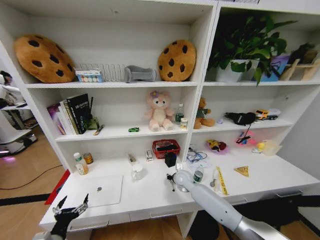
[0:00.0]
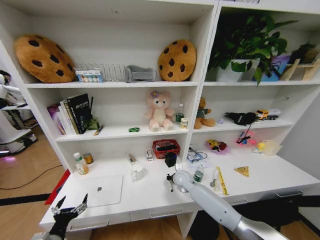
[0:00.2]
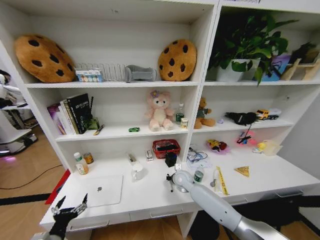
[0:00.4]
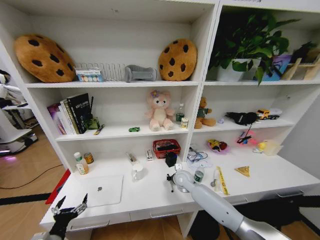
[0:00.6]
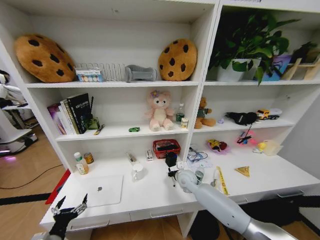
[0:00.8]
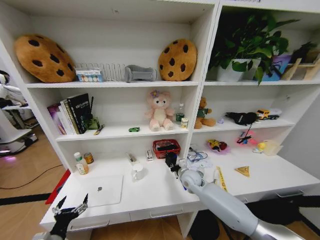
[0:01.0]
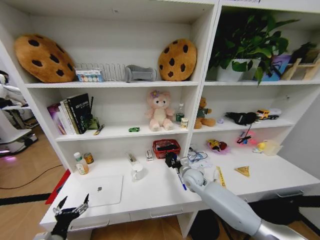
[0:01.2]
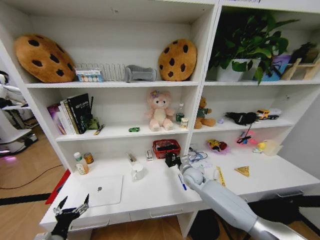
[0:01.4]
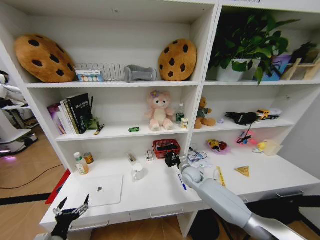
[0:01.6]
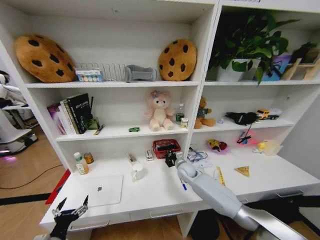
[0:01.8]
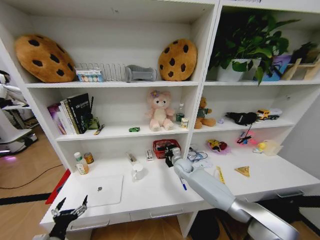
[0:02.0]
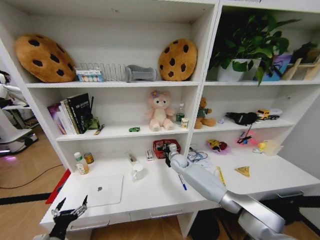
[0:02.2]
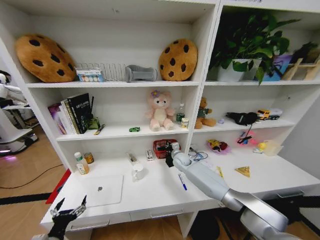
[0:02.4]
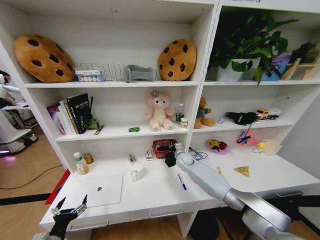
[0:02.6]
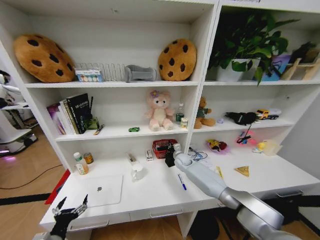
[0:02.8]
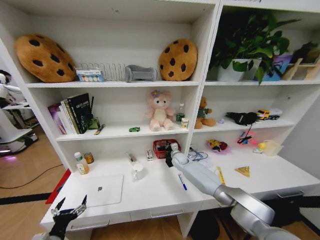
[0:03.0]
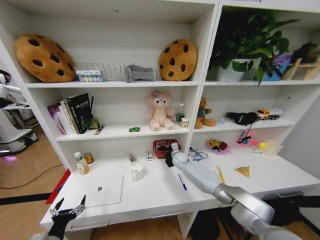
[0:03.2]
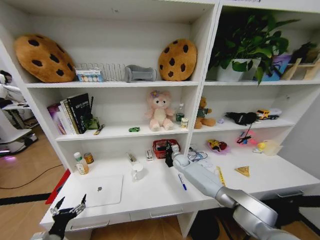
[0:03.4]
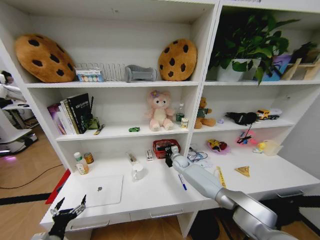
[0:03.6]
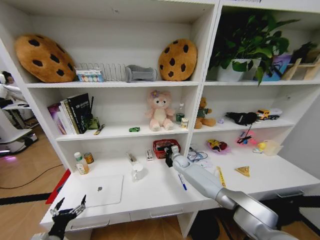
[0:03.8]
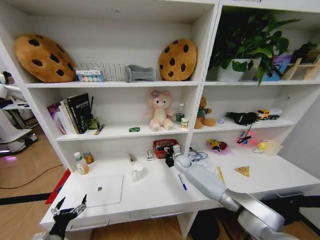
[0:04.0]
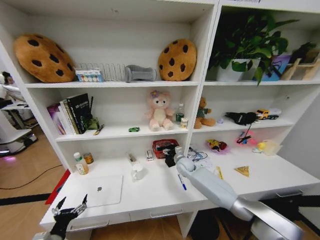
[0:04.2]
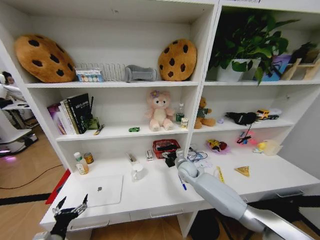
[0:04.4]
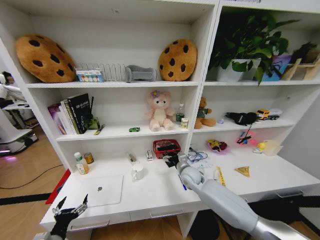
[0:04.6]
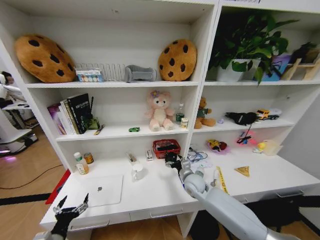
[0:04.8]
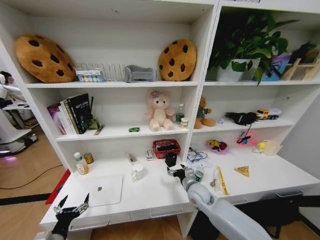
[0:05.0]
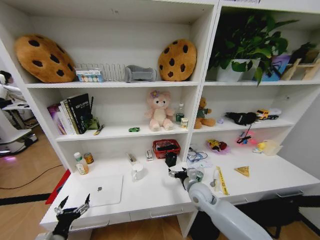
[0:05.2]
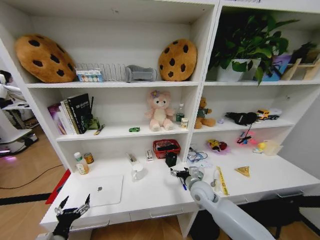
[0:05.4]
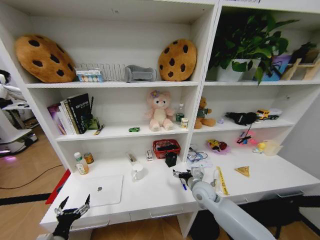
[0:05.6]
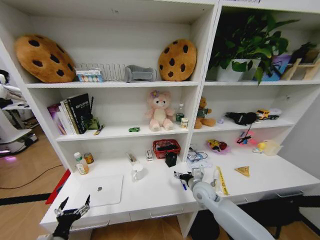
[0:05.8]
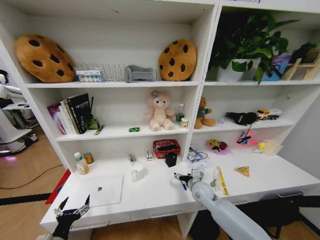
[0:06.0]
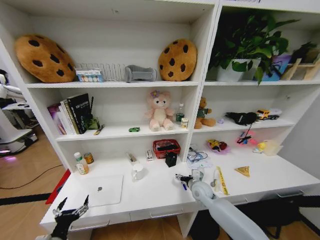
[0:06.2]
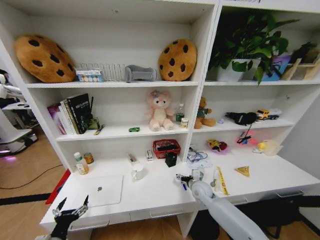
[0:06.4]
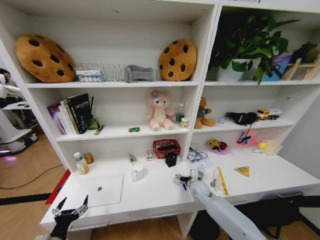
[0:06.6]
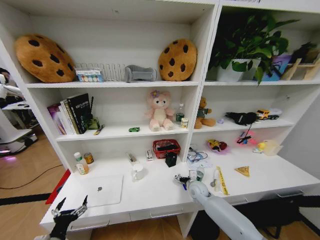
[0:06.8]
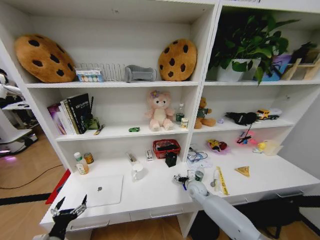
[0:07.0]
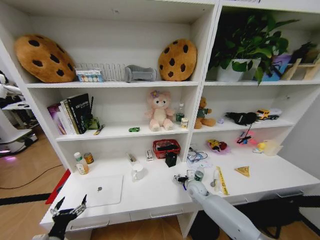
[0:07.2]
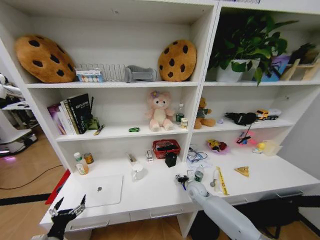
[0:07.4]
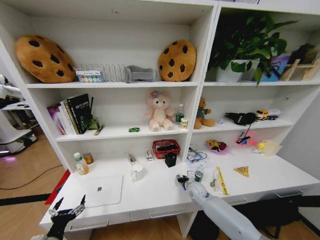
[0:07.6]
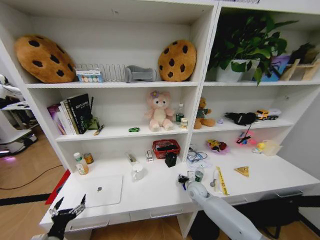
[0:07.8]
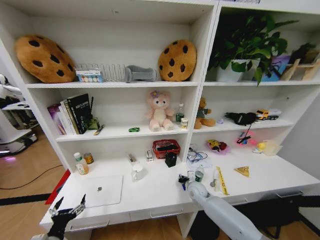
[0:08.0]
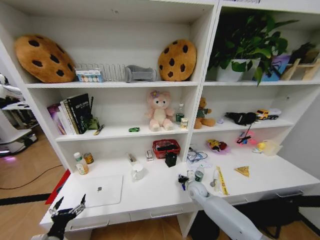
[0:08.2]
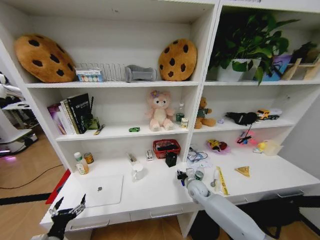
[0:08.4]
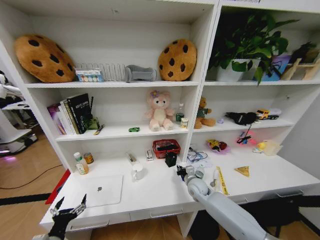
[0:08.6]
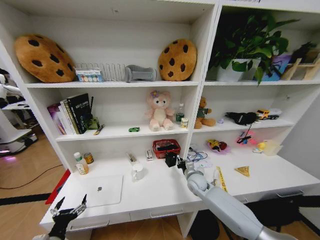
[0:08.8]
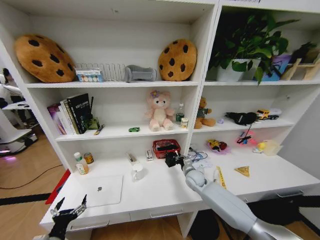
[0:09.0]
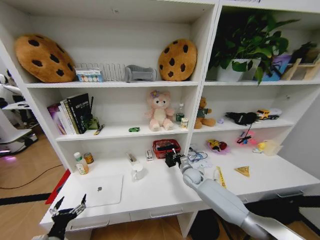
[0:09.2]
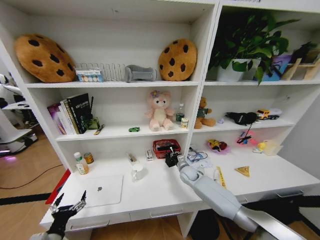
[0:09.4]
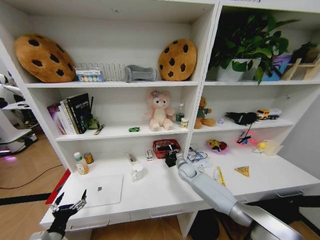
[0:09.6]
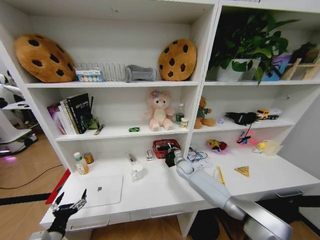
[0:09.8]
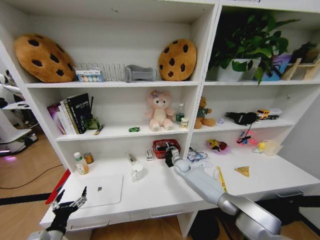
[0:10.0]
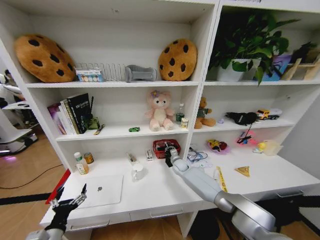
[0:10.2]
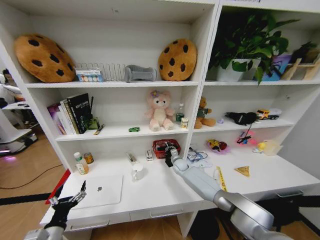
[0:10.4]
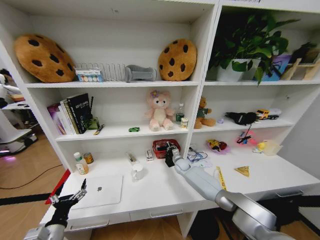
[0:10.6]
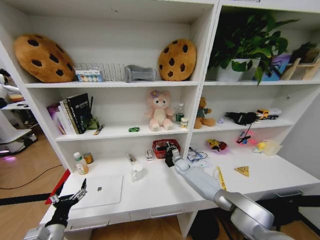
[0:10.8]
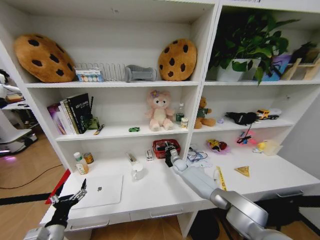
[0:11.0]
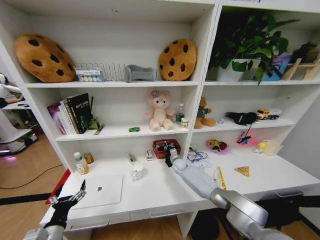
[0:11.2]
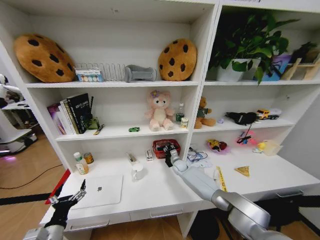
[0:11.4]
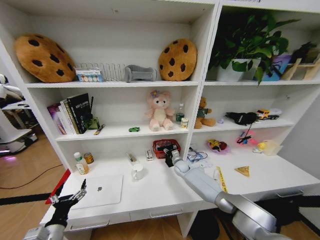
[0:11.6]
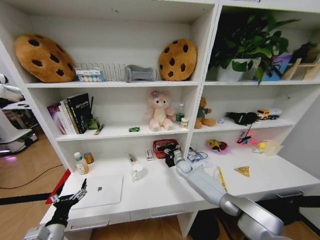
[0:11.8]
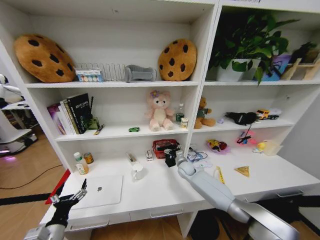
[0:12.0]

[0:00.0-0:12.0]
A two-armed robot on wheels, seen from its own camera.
Task of the whole recording: Organize the objects on the table.
0:01.6 to 0:03.0: The right gripper moves forward, roughly 10 cm.
0:03.0 to 0:04.4: The right gripper is displaced backward by roughly 10 cm, and opens.
0:04.4 to 0:06.0: The right gripper is displaced backward and to the right by roughly 10 cm.
0:06.0 to 0:07.6: The right gripper goes roughly 5 cm downward, and closes.
0:07.6 to 0:09.0: The right gripper moves approximately 5 cm, and closes.
0:09.0 to 0:10.4: The right gripper is displaced forward by some 10 cm.
0:10.4 to 0:12.0: The right gripper moves some 5 cm, and opens up.

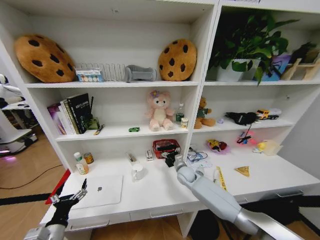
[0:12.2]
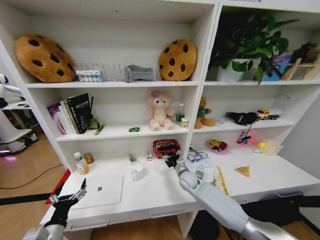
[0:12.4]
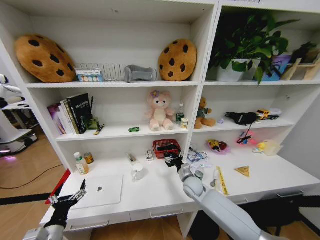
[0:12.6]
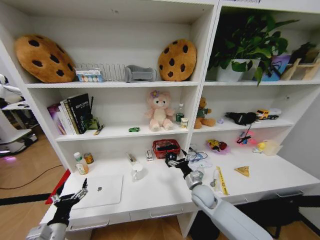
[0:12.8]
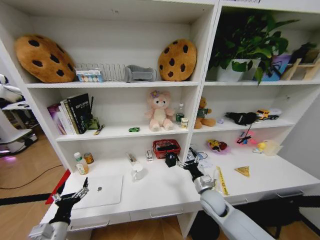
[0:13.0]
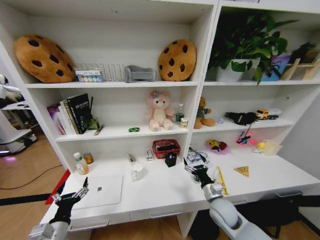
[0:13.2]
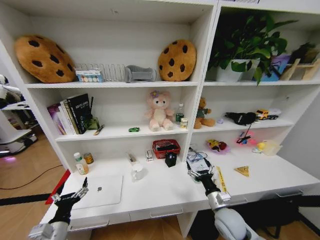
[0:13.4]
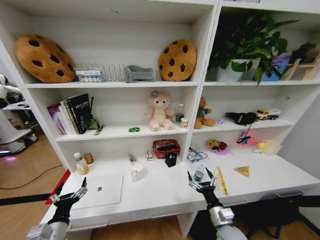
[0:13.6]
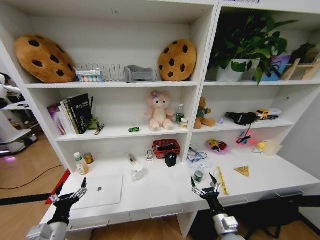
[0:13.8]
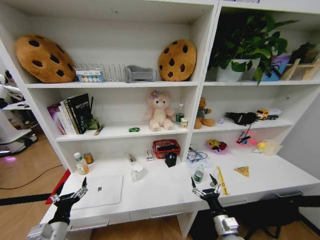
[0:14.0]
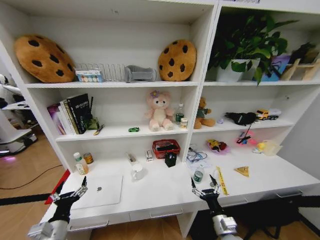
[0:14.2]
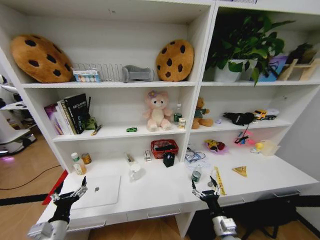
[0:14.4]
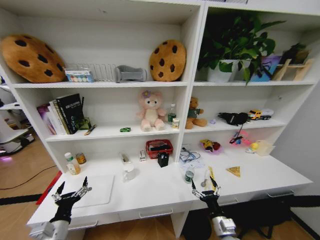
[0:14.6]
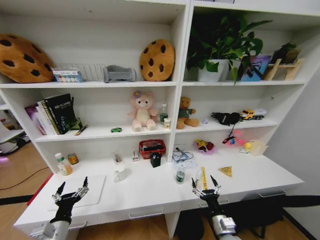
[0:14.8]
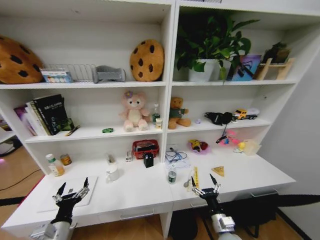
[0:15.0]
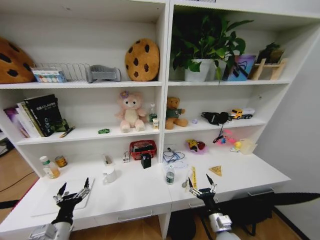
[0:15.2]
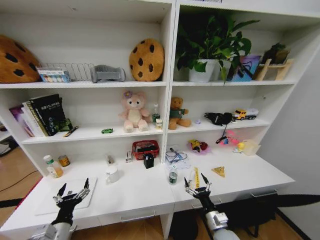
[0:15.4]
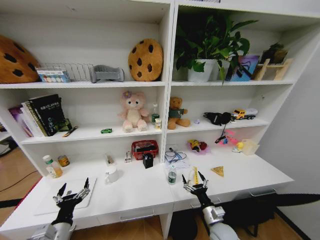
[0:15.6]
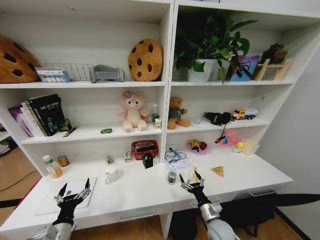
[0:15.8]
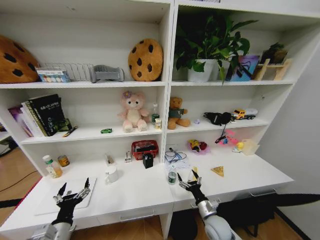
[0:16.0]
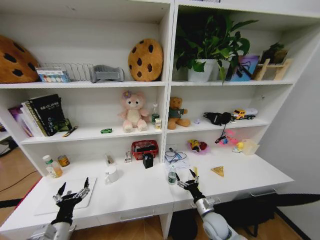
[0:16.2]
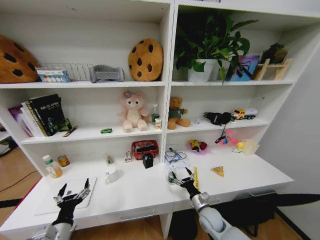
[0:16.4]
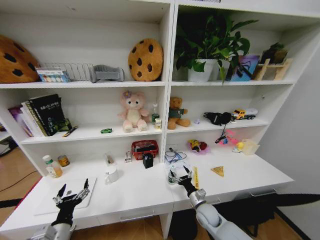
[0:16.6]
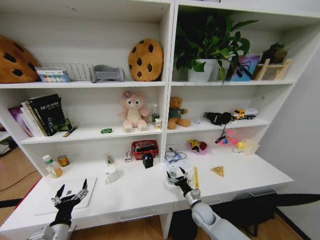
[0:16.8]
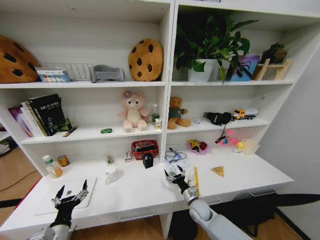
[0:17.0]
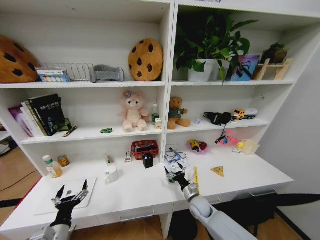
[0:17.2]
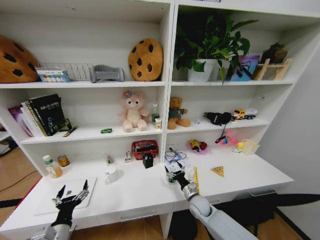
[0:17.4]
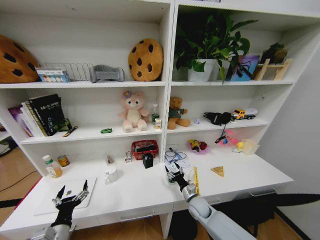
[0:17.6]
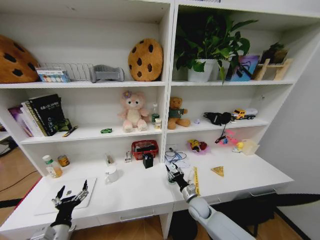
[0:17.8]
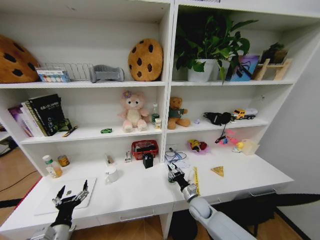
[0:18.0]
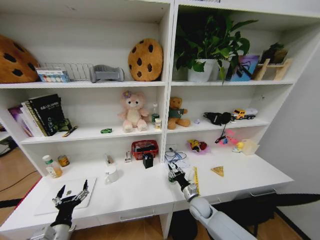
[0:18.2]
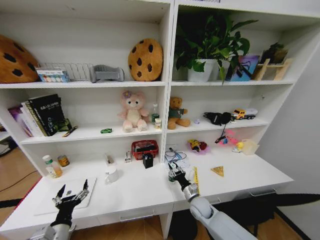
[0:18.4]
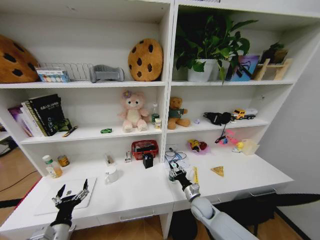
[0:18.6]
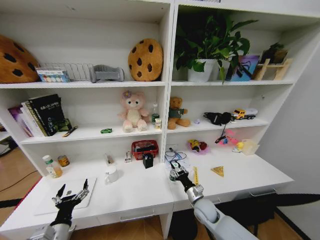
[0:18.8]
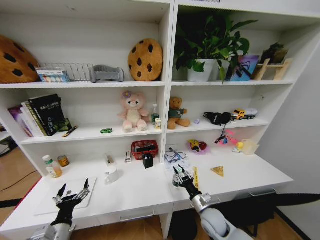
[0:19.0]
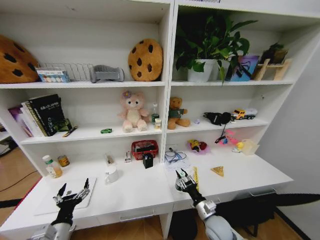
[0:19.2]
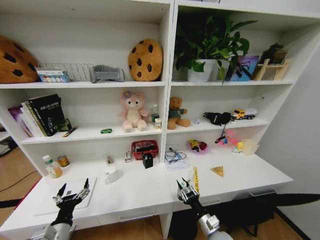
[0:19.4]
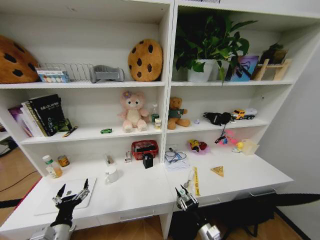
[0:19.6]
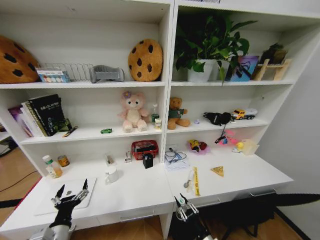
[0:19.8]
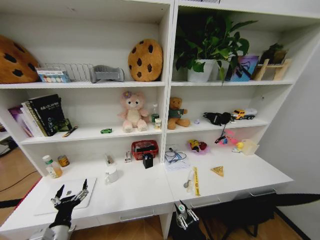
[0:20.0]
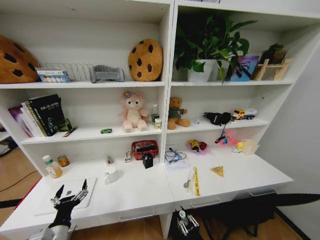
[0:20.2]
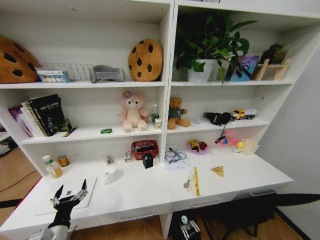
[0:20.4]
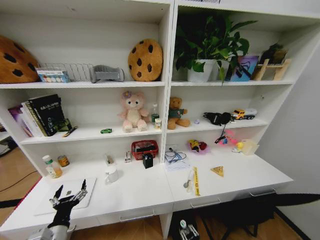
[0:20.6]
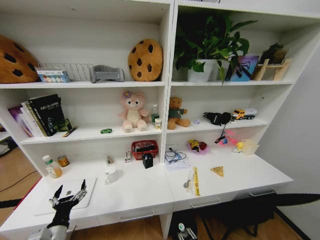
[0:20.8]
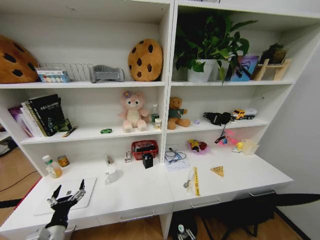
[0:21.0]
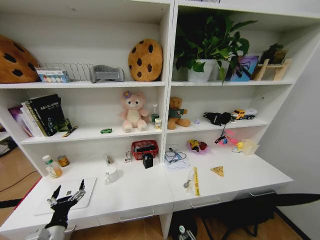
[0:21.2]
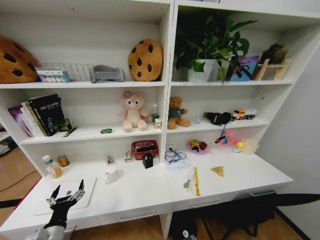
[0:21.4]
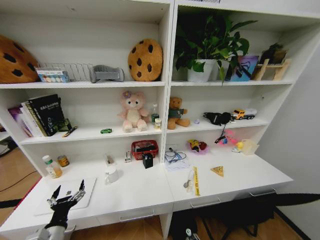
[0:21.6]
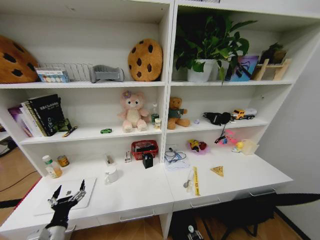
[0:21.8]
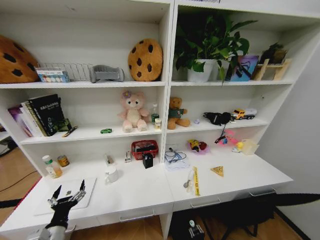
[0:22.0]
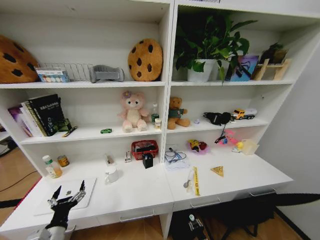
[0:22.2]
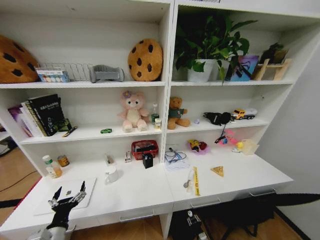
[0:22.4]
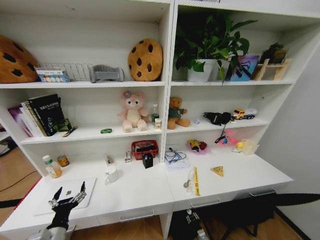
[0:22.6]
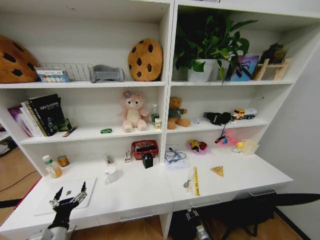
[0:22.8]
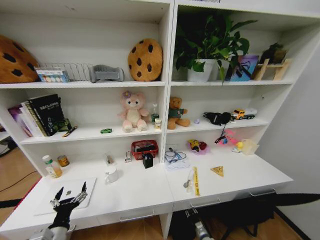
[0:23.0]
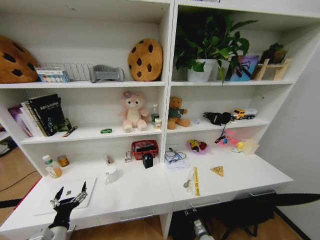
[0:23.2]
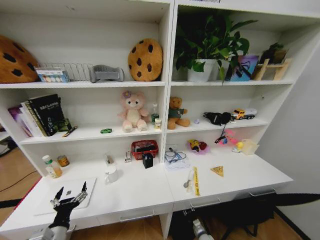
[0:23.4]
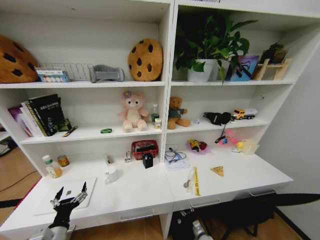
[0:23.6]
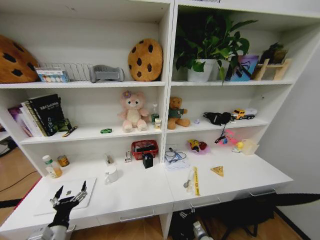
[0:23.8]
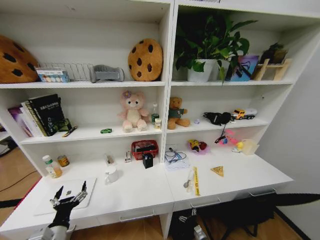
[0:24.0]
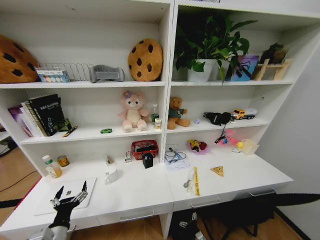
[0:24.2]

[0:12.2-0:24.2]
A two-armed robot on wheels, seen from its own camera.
Task of the whole recording: Organize the objects on the table.
0:12.2 to 0:13.8: The right gripper heads backward, covering some 30 cm.
0:15.2 to 0:16.6: The right gripper is displaced forward by roughly 10 cm.
0:16.6 to 0:18.2: The right gripper closes up.
0:18.2 to 0:19.8: The right gripper shifts roughly 20 cm backward.
0:19.8 to 0:21.2: The right gripper travels downward by approximately 15 cm.
